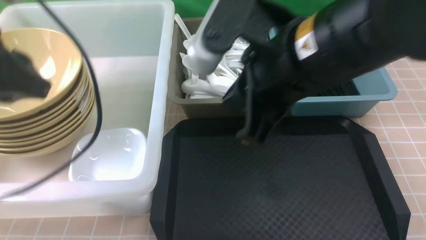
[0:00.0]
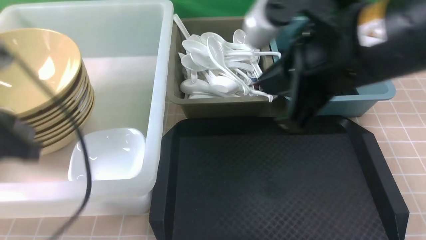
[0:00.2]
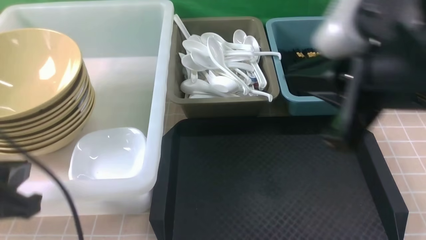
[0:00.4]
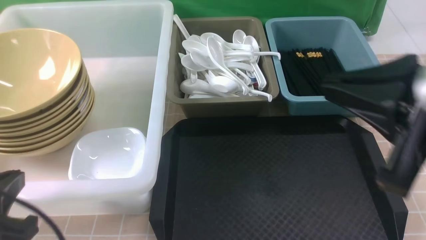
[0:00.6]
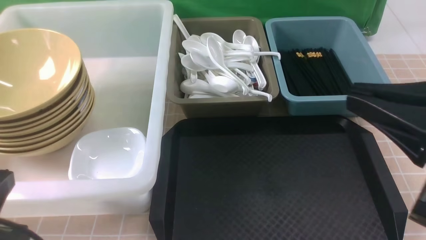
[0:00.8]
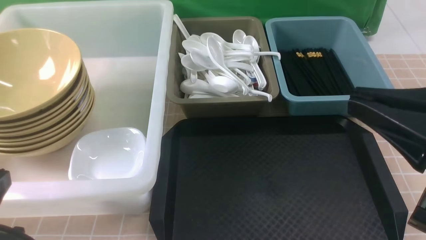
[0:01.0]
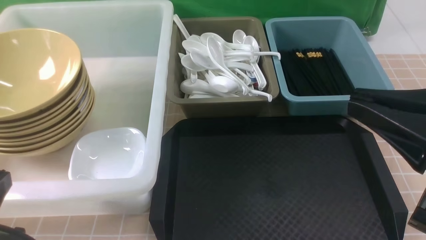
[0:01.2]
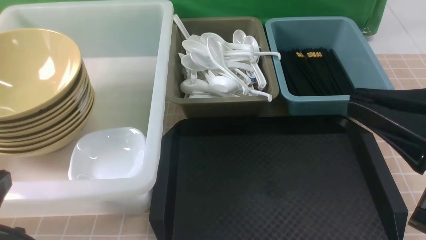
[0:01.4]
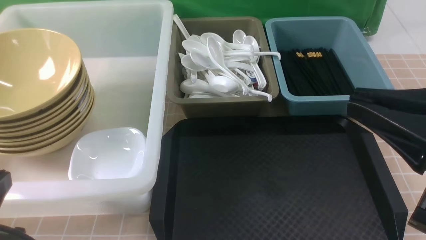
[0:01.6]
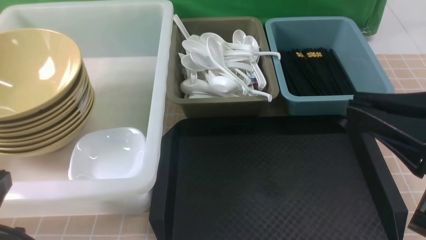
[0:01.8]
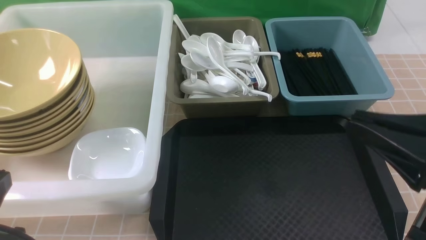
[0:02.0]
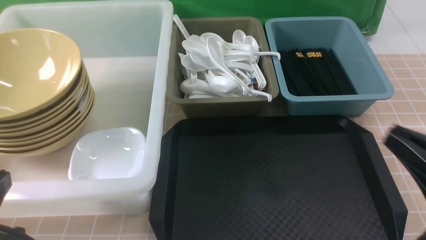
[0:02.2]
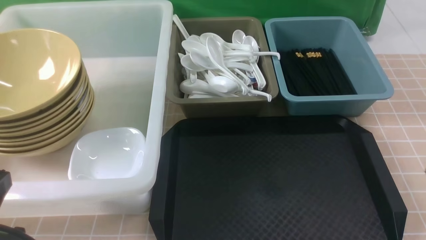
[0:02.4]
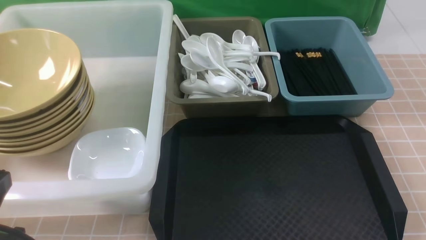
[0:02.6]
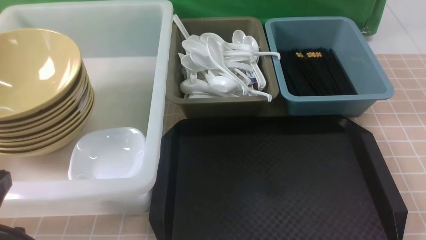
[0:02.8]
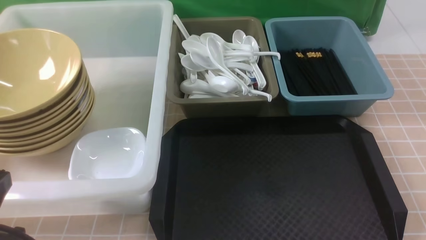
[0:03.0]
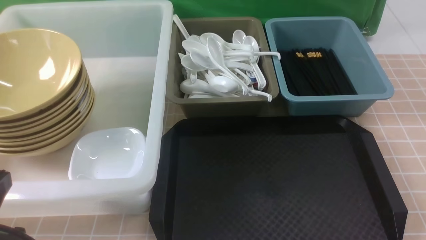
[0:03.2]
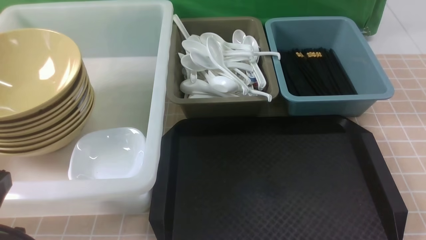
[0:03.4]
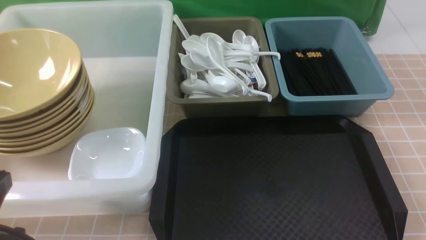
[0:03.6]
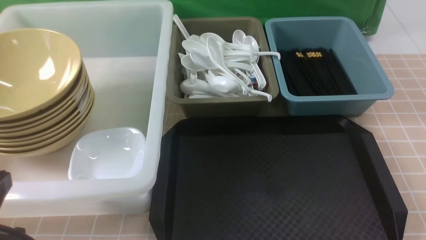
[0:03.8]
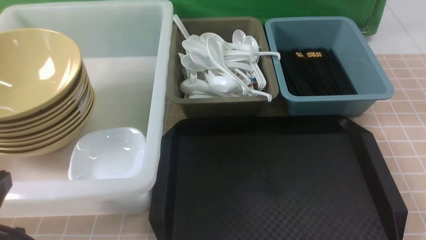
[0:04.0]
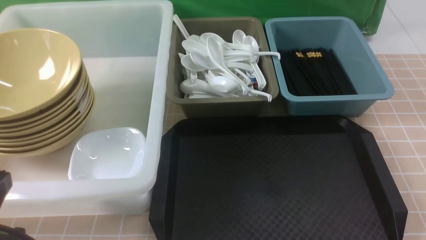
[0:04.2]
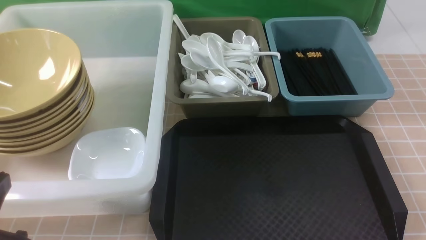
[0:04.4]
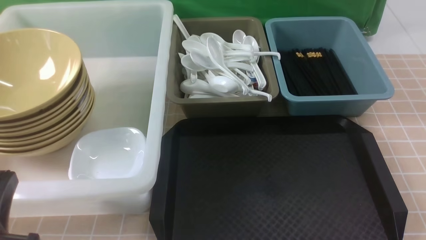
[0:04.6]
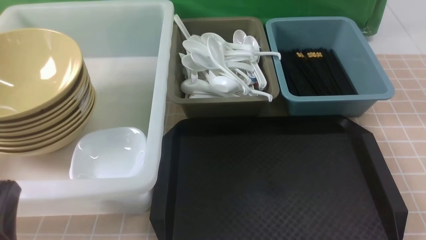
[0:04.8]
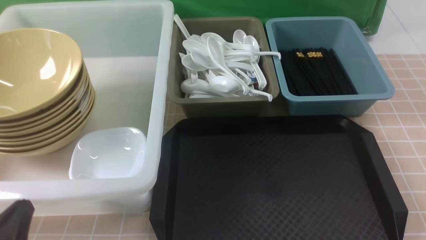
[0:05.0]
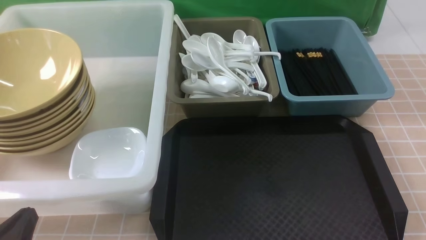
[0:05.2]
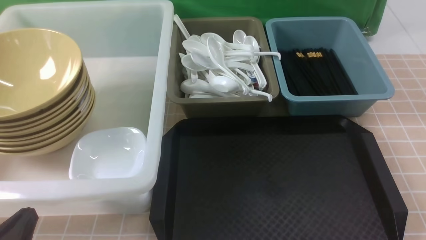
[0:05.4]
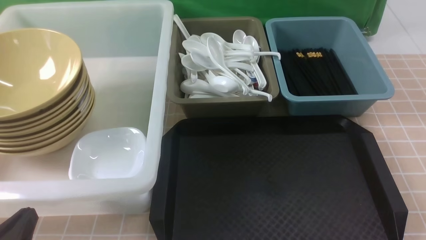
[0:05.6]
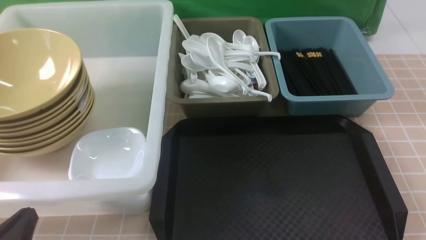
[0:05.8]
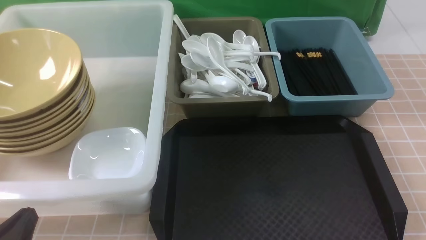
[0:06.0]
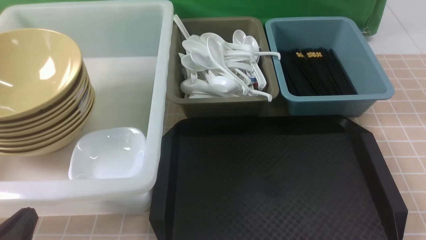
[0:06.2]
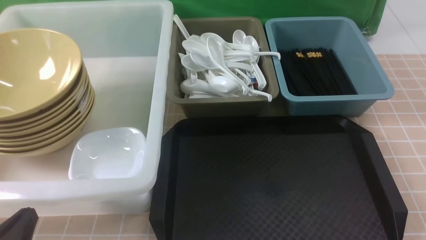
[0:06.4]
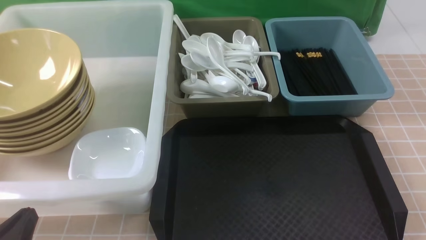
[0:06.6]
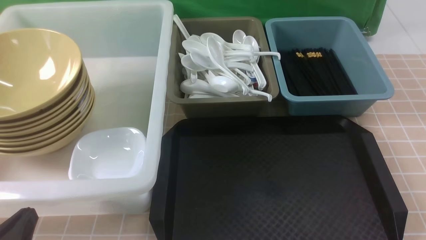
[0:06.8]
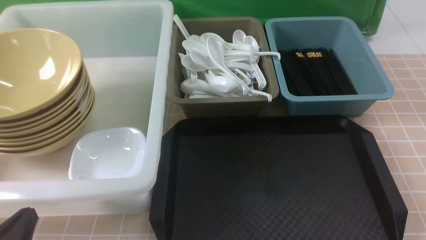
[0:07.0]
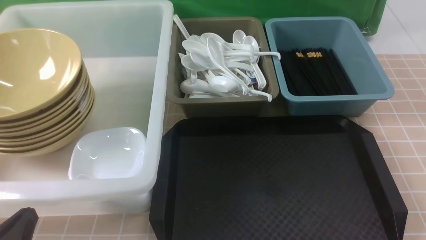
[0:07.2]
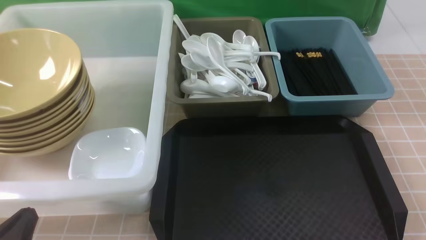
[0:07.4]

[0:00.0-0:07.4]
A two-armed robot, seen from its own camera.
Task of the whole recording: on brown table put chopsticks spoon bowls plates into blue grey white boxes.
0:00.0 to 0:01.4: The left gripper travels backward and downward by roughly 15 cm, while the right gripper moves to the right and backward, some 15 cm.
0:01.4 to 0:03.0: The right gripper moves downward and to the right, roughly 20 cm.
0:04.4 to 0:06.0: The left gripper is displaced downward by about 10 cm.
0:06.0 to 0:07.4: The two grippers keep their place.
